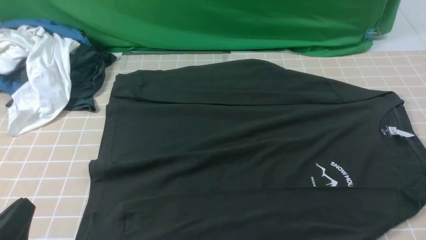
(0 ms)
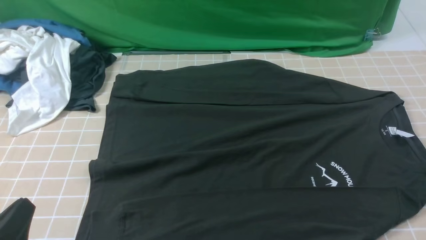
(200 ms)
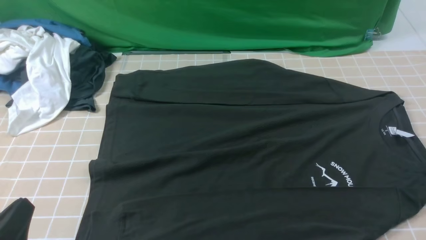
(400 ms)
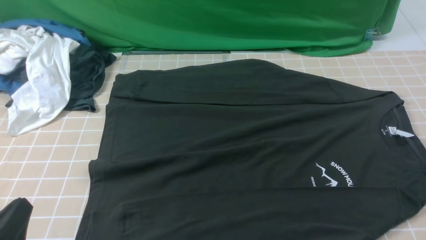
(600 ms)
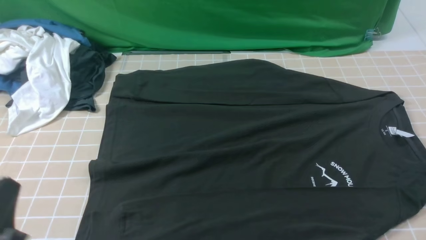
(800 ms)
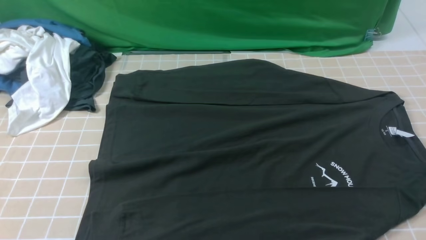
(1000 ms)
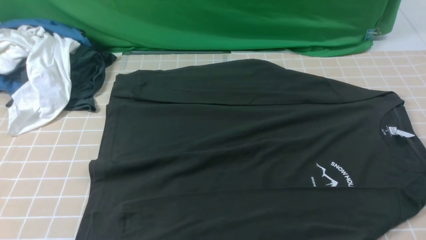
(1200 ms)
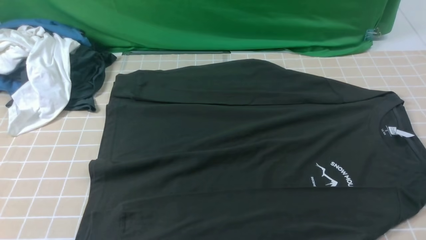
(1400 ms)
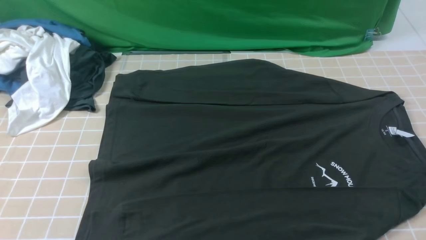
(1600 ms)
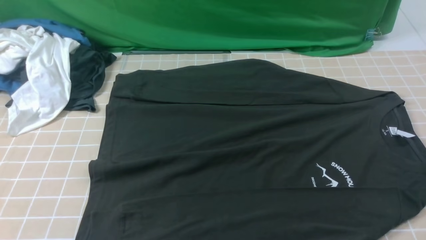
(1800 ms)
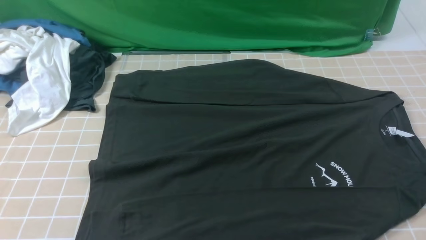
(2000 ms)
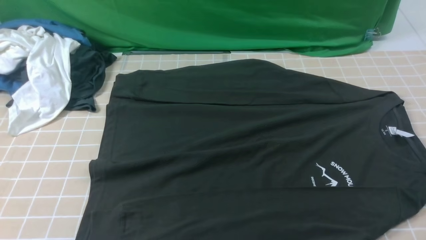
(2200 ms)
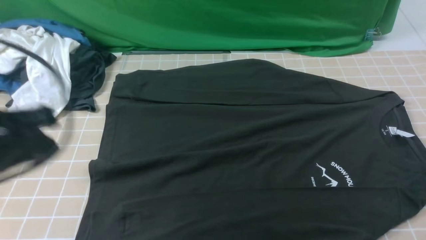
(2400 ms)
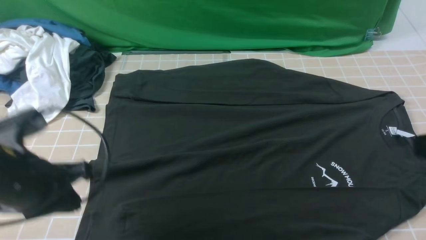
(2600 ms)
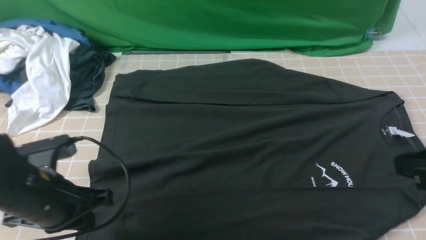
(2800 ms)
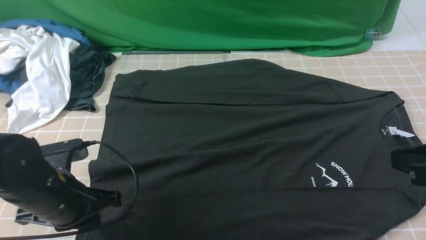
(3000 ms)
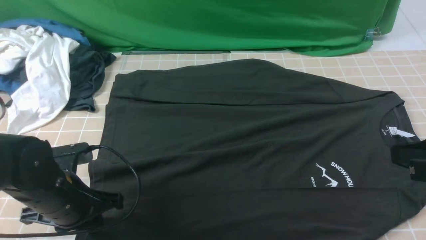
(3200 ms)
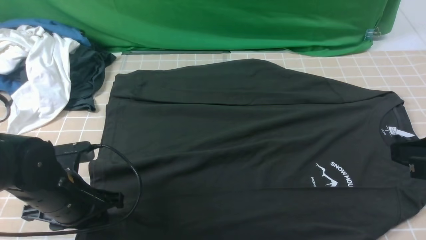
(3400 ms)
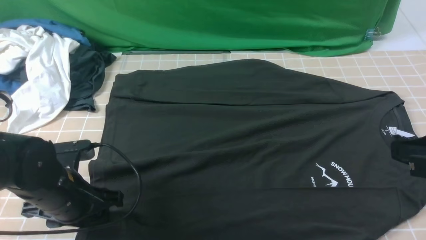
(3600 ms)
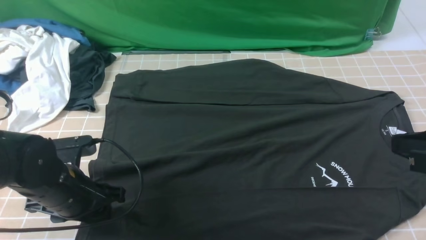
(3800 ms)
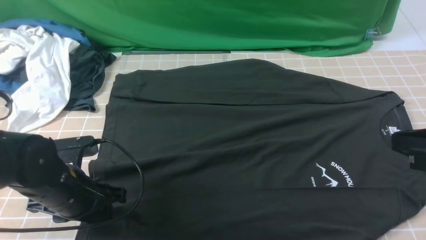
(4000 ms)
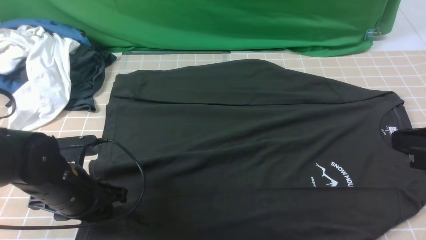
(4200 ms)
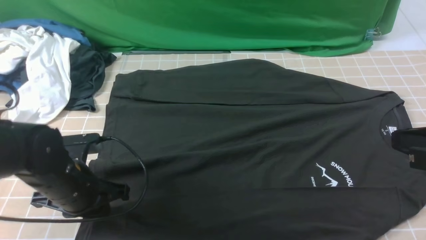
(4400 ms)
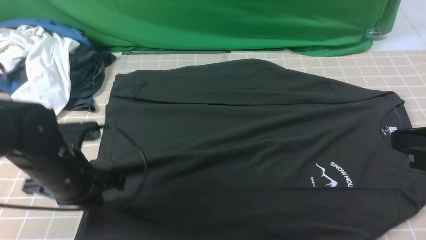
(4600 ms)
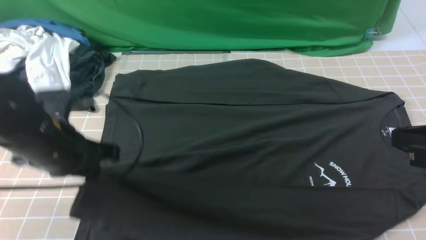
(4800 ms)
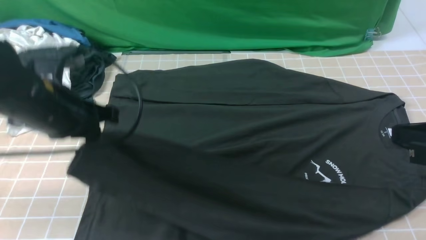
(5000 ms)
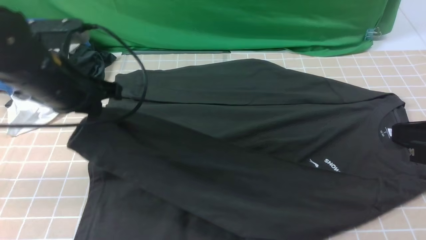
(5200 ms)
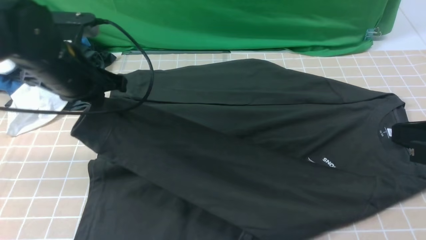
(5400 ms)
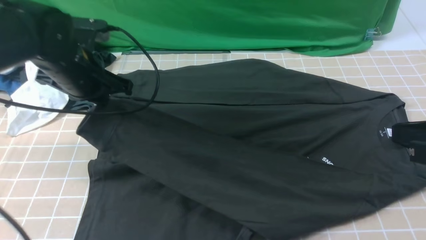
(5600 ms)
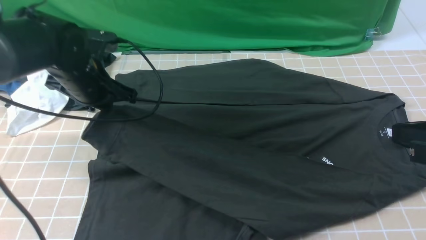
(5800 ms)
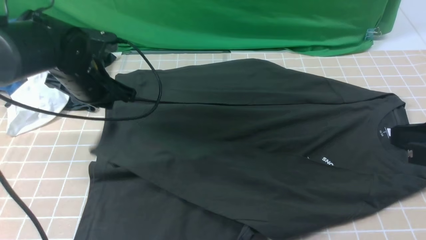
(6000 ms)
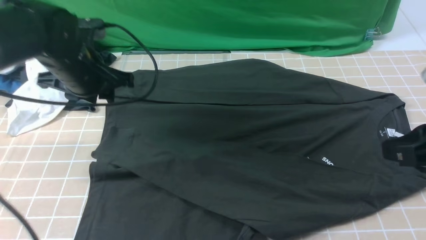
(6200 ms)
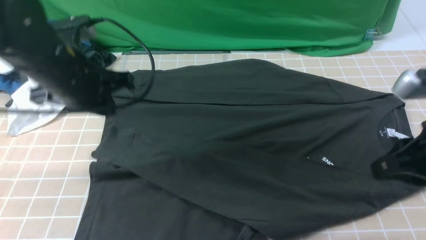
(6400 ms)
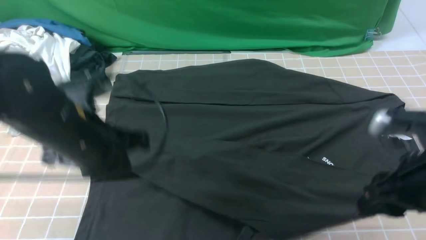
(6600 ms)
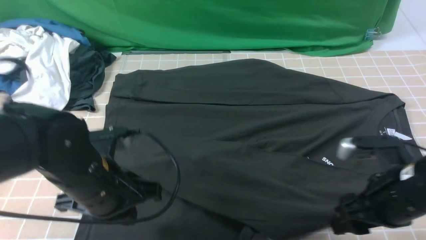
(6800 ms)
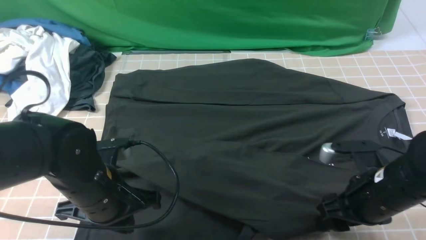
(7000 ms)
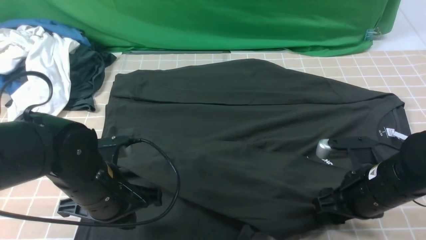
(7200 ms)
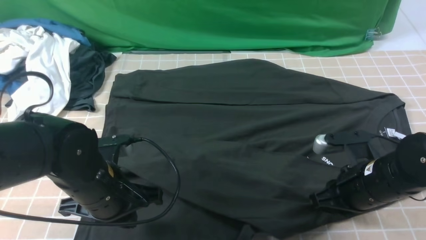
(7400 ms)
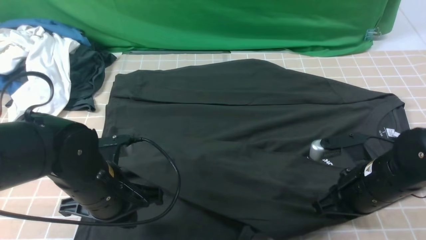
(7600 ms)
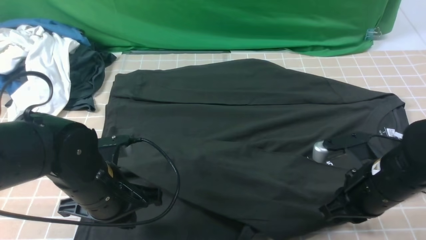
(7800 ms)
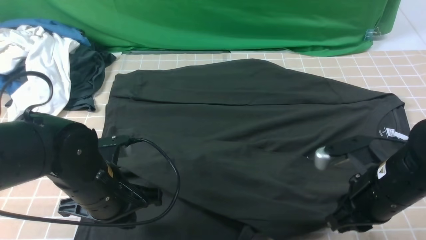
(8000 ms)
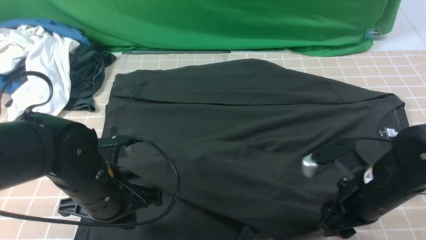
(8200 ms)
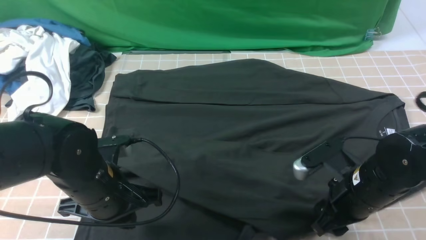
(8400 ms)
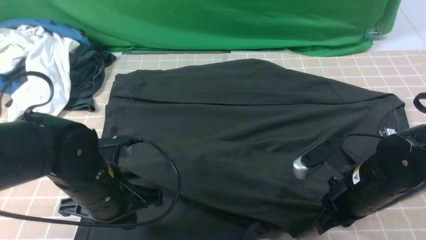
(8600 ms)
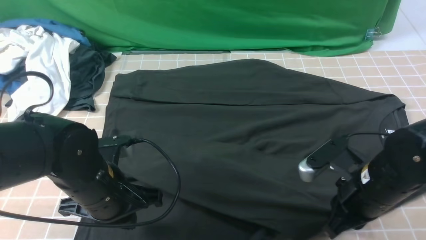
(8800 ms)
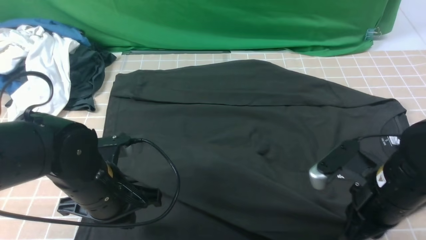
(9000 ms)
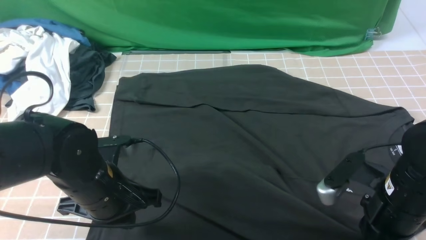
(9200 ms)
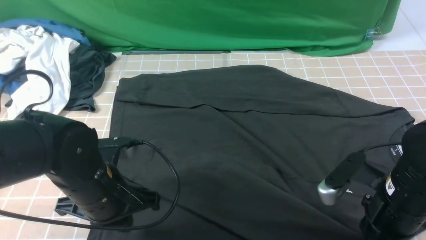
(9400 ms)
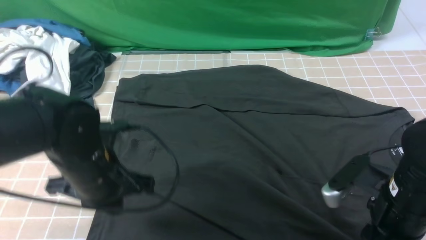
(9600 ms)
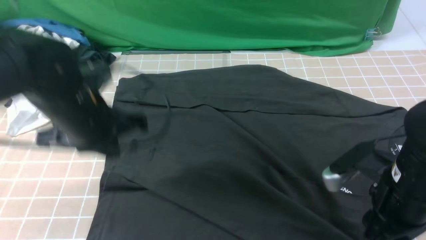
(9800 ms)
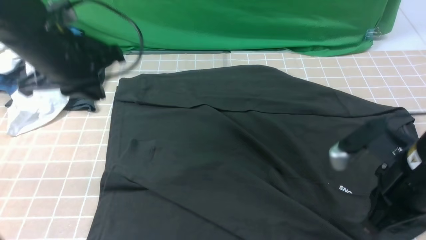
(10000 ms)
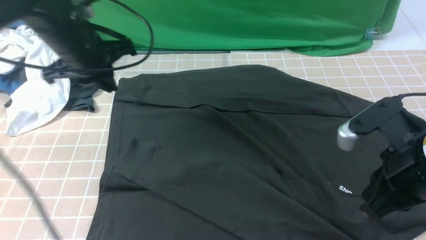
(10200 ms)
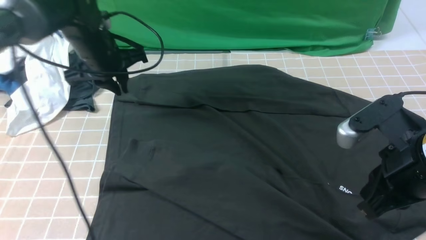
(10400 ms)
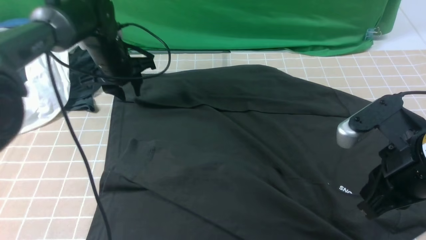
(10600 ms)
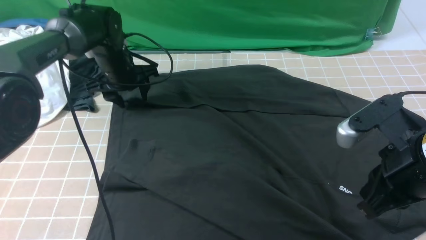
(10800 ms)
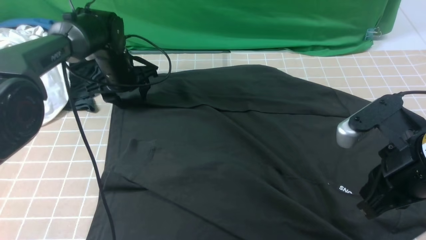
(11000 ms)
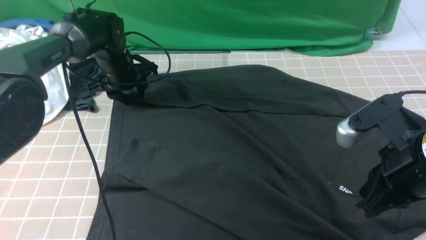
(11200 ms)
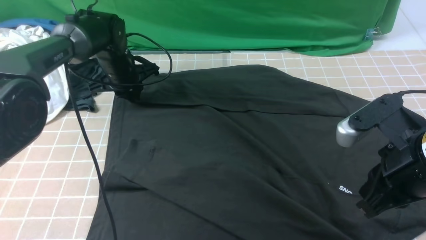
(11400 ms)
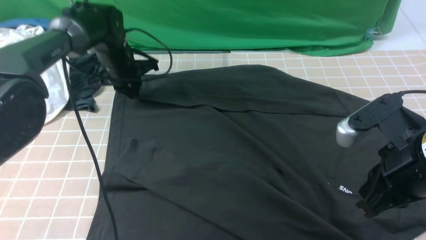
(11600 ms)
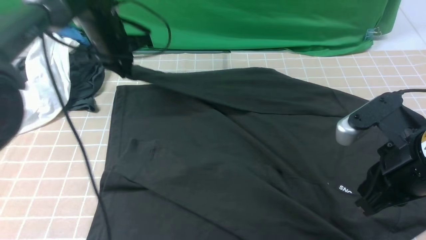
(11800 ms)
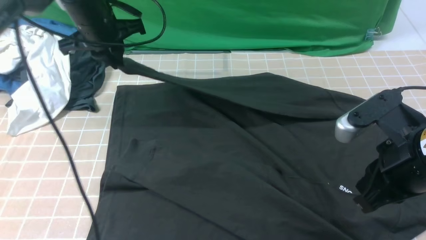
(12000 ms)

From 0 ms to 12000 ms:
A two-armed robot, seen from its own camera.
Step, from 0 ms to 4400 ms: use the left arm to clamp the cuff closest to it.
Step, from 4800 ms to 6000 ms: use the left arm to drag and place the cuff at the centered position on the left edge of the fabric.
Step, from 6400 ms to 11600 ms: use the left arm to clamp the cuff farthest from it.
From 0 ms to 1600 ms: The left gripper heads upward, covering about 5 cm.
From 1600 ms to 3000 ms: The left gripper moves forward and downward, roughly 20 cm; the right gripper shifts some 15 cm forward, upward and to the left.
From 3000 ms to 4400 ms: The left gripper opens, then closes once more.
From 4400 ms to 6000 ms: The left gripper travels forward and upward by some 15 cm.
From 6000 ms to 7600 ms: The right gripper travels downward and forward by roughly 15 cm, and opens and closes again; the left gripper shifts about 15 cm backward and downward, and closes up.
From 7600 ms to 9000 ms: The right gripper opens, then closes once more.
From 9000 ms to 10400 ms: The left gripper shifts approximately 20 cm forward, and opens. The right gripper goes roughly 10 cm upward, and opens, then closes again.
From 10400 ms to 12000 ms: The left gripper opens, then closes again.

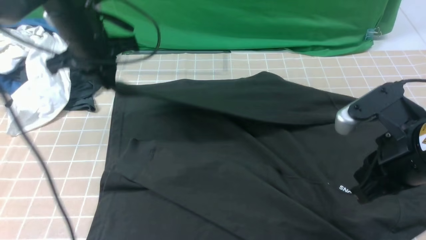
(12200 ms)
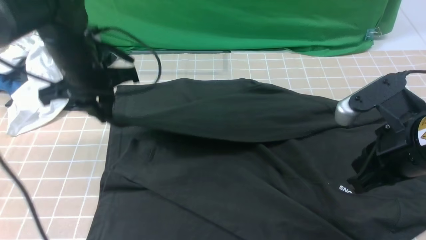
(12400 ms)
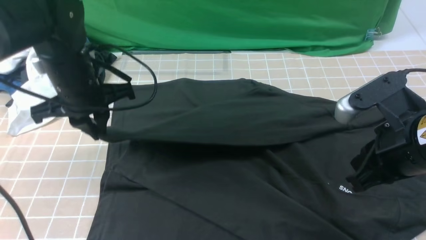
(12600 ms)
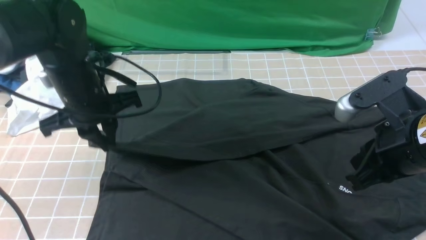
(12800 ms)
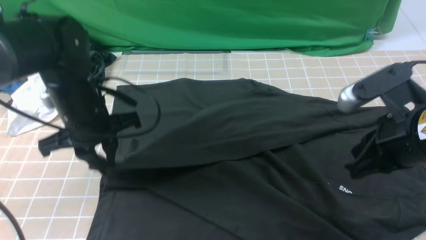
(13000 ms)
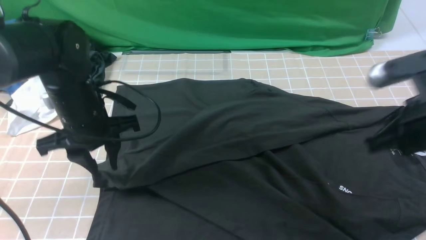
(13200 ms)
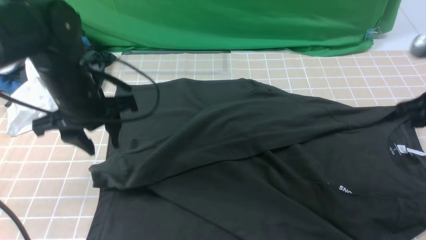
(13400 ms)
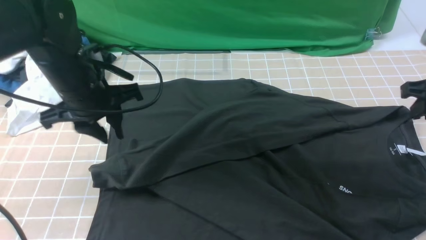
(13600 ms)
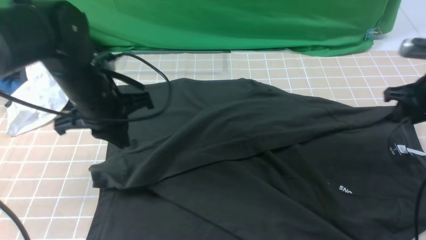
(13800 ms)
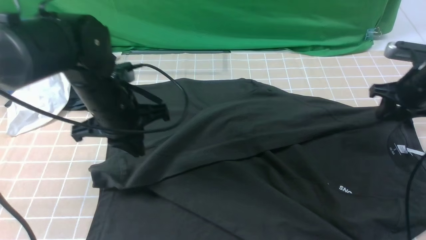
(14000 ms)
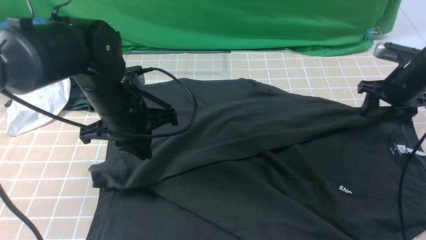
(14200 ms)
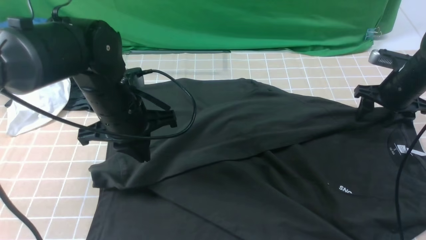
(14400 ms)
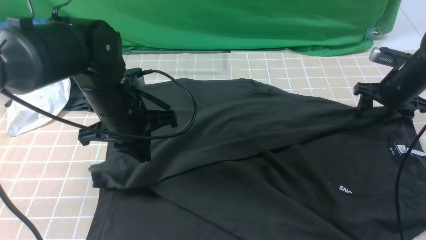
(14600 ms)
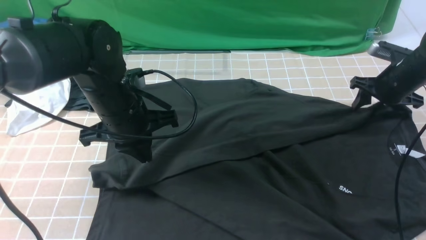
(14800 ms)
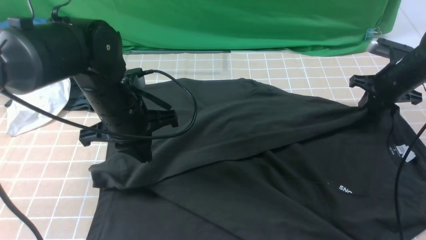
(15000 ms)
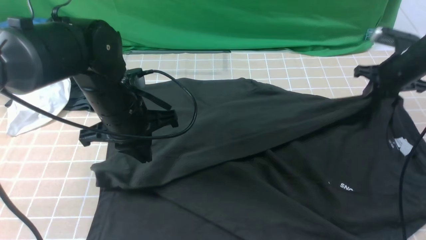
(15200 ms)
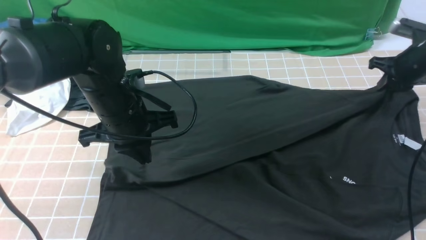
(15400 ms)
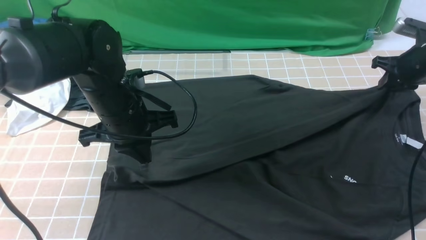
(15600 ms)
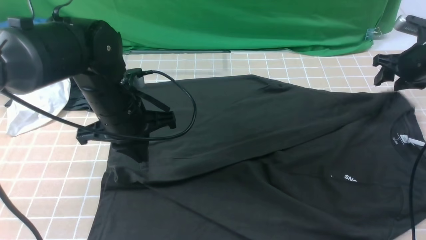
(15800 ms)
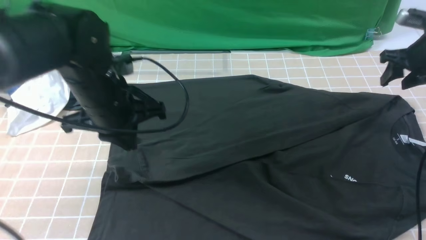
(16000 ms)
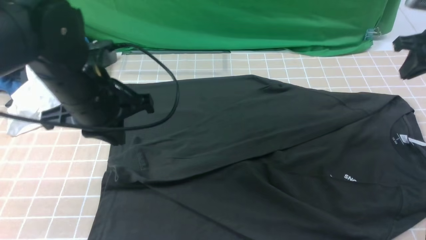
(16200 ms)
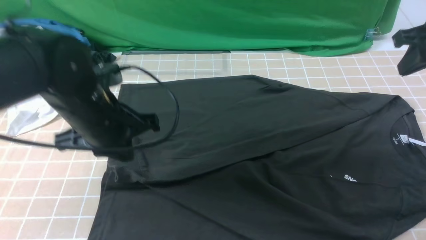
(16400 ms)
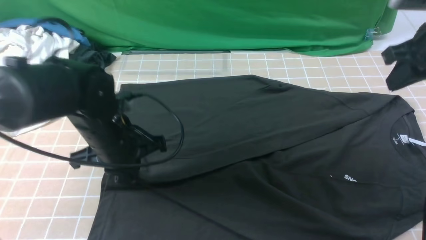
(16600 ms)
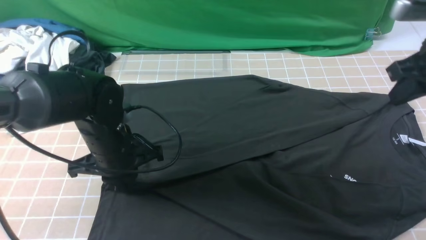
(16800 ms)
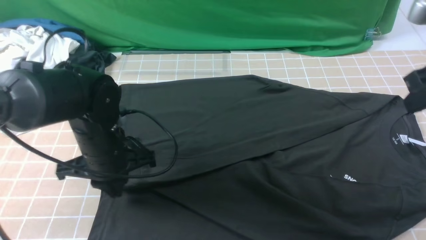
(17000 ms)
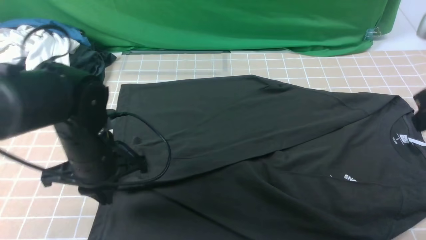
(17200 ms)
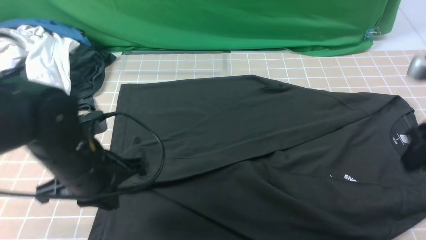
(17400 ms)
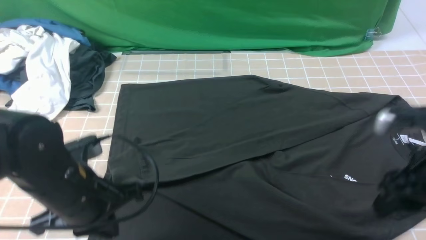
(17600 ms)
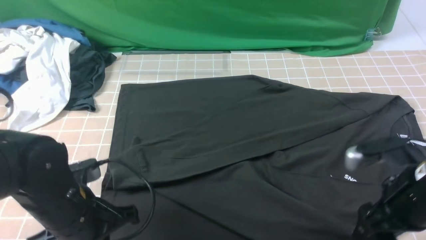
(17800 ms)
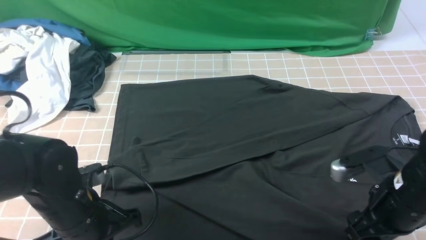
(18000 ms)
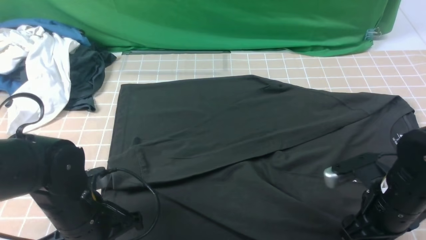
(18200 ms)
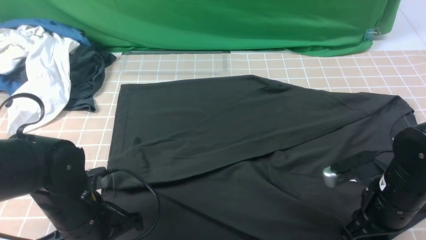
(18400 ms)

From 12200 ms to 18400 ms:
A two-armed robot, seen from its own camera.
Step, from 12200 ms to 13200 ms: use the left arm to drag and drop the cuff onto the cuff closest to the left arm.
From 12200 ms to 13800 ms: The left gripper shifts approximately 5 cm backward, and opens, then closes again. The right gripper is displaced forward and to the right by roughly 20 cm, and opens its fingers.
From 13800 ms to 15400 ms: The right gripper goes about 10 cm forward, and closes its fingers.
From 15400 ms to 16800 ms: The left gripper moves downward, about 5 cm; the right gripper travels backward, upward and to the left by roughly 20 cm, and opens and closes again.
From 16800 ms to 18400 ms: The left gripper goes about 10 cm backward, while the right gripper goes about 20 cm downward and backward, and opens its fingers.
